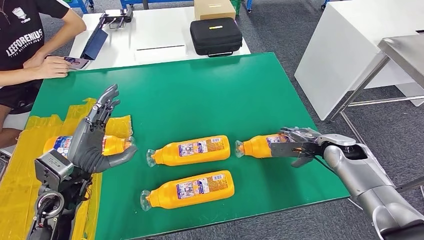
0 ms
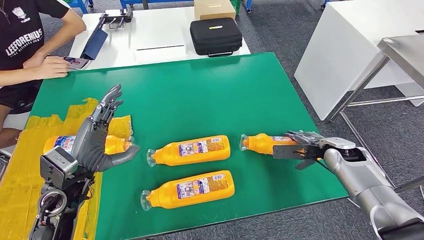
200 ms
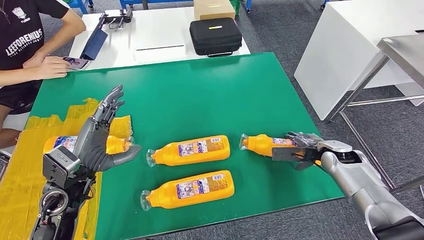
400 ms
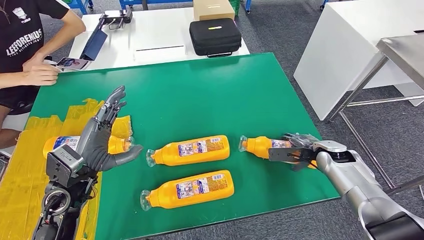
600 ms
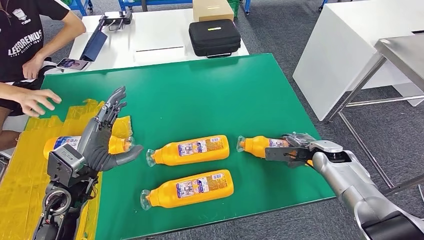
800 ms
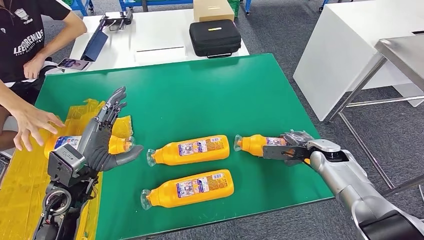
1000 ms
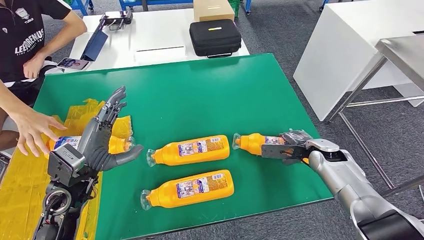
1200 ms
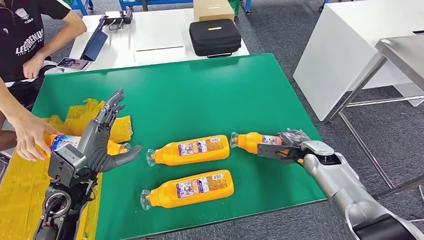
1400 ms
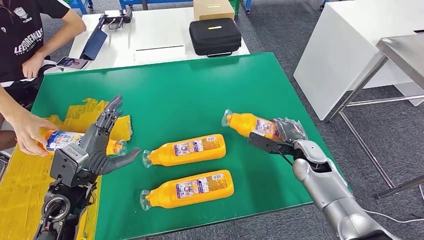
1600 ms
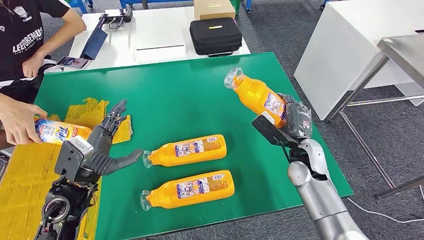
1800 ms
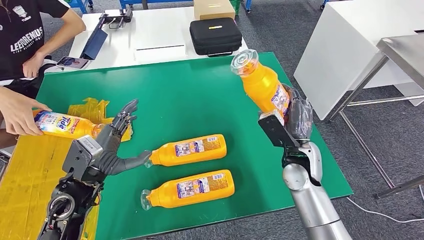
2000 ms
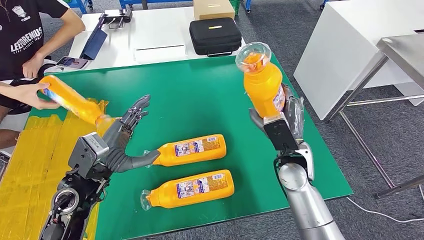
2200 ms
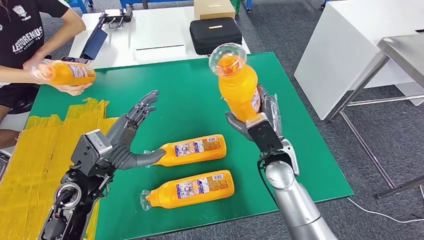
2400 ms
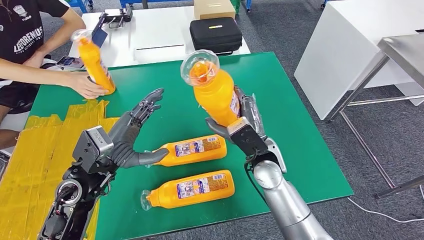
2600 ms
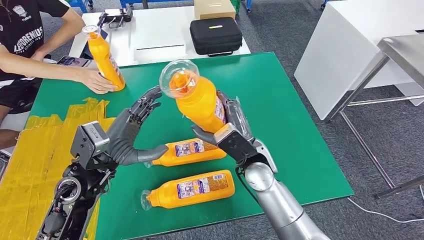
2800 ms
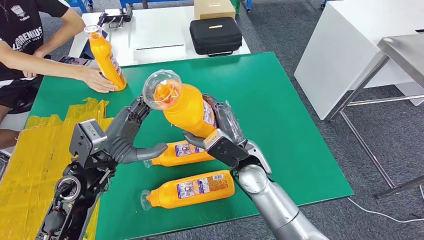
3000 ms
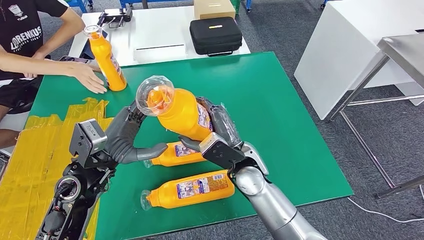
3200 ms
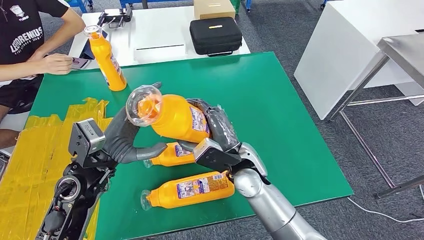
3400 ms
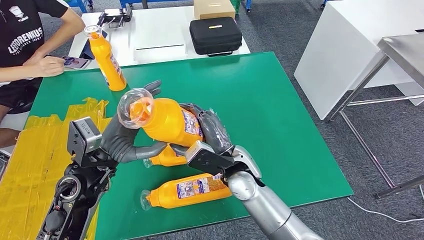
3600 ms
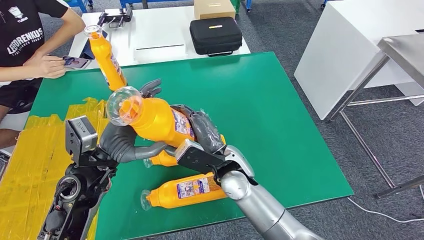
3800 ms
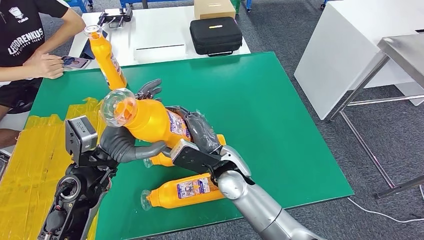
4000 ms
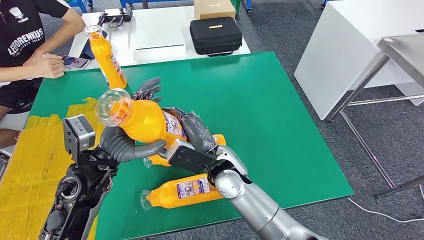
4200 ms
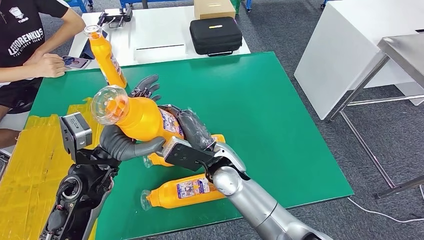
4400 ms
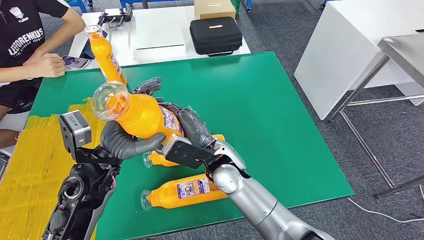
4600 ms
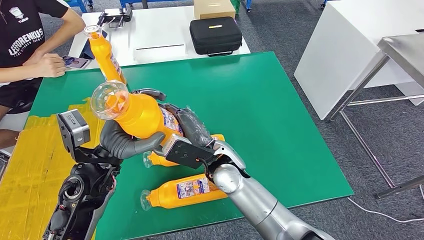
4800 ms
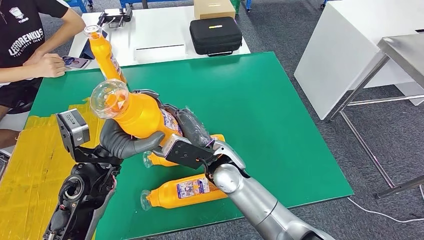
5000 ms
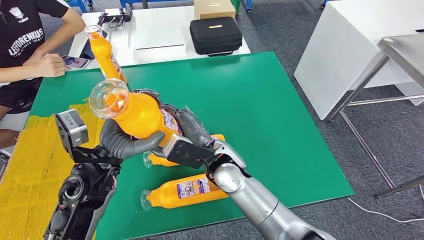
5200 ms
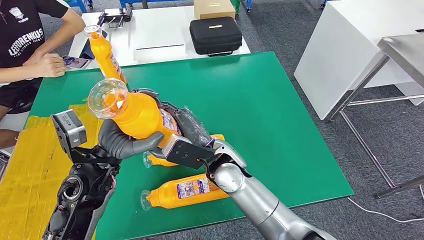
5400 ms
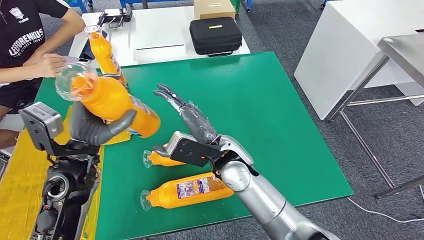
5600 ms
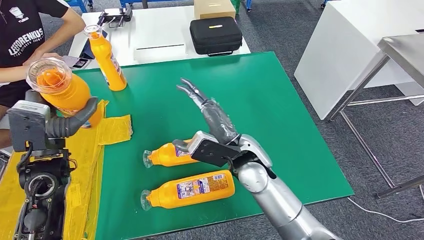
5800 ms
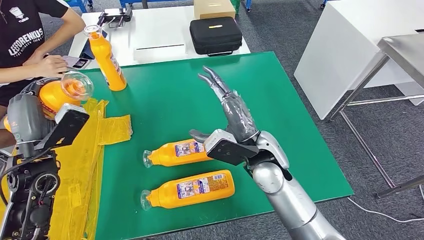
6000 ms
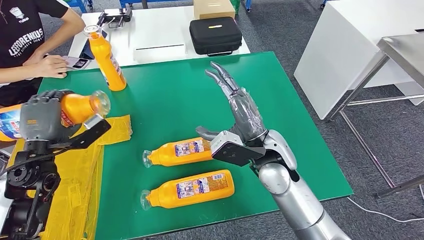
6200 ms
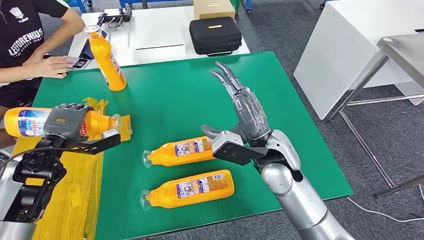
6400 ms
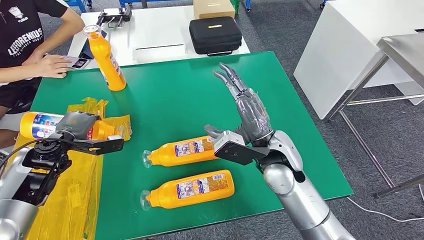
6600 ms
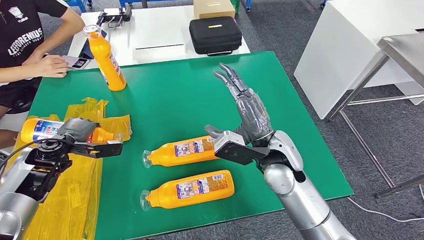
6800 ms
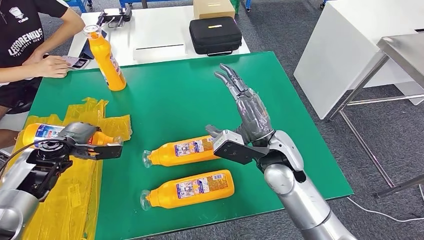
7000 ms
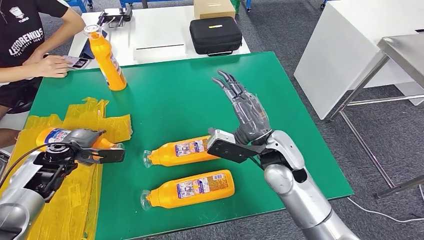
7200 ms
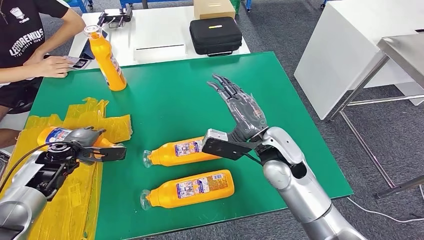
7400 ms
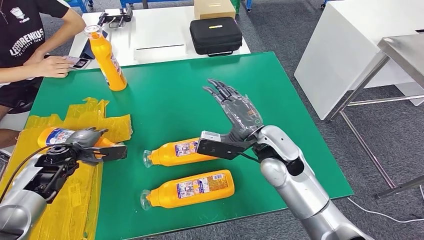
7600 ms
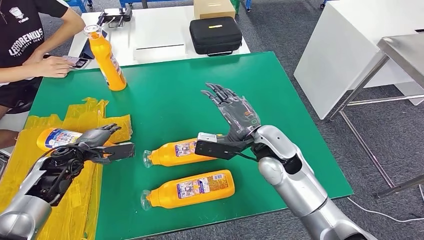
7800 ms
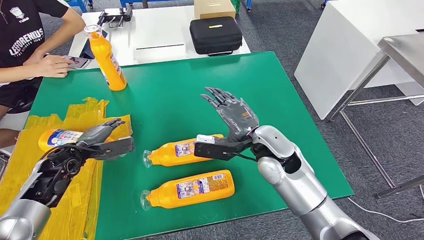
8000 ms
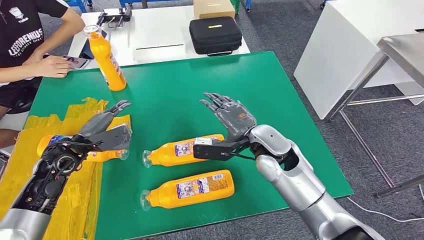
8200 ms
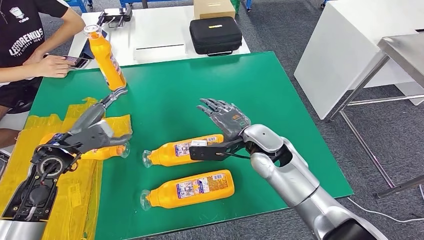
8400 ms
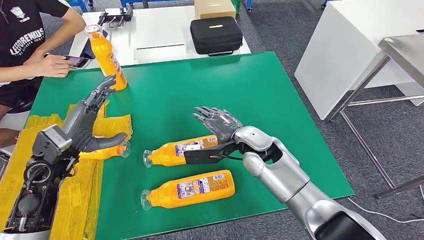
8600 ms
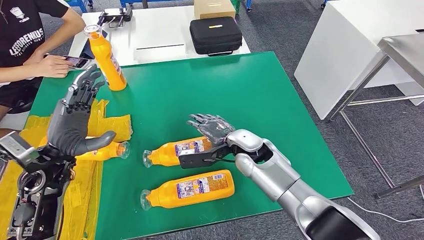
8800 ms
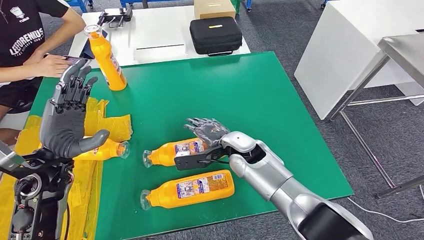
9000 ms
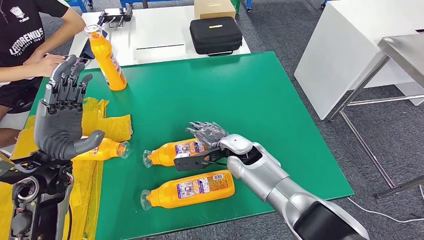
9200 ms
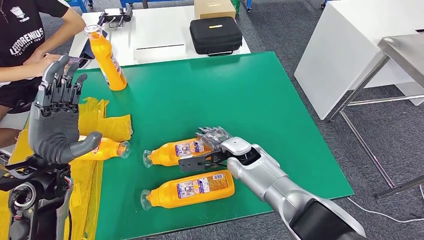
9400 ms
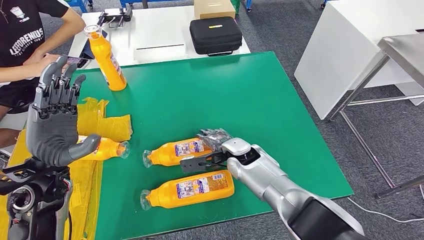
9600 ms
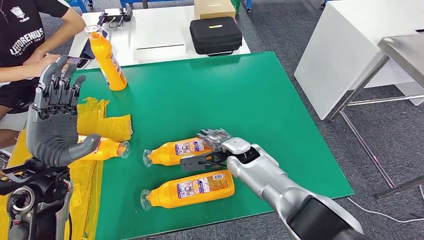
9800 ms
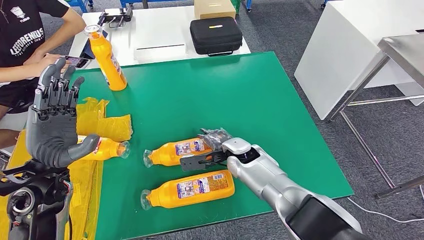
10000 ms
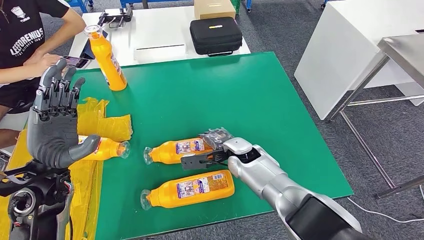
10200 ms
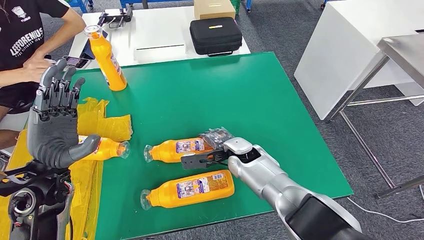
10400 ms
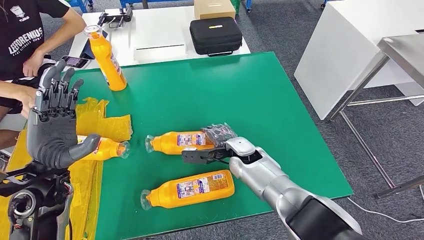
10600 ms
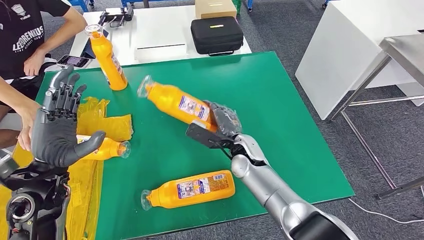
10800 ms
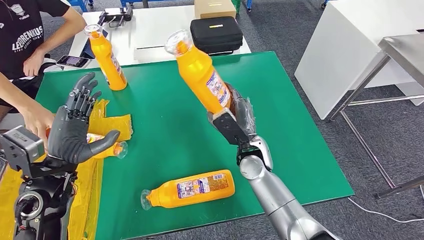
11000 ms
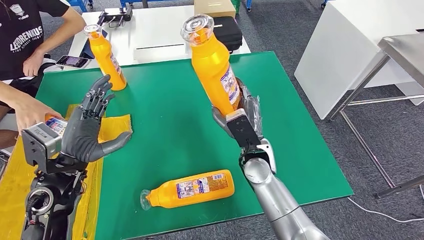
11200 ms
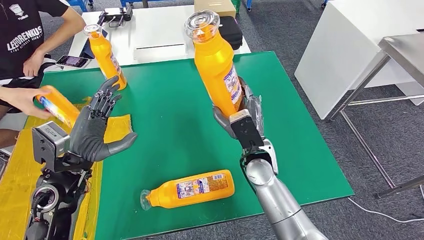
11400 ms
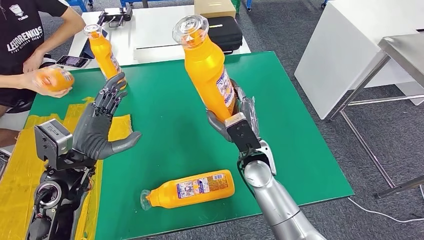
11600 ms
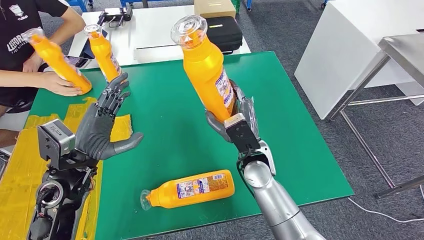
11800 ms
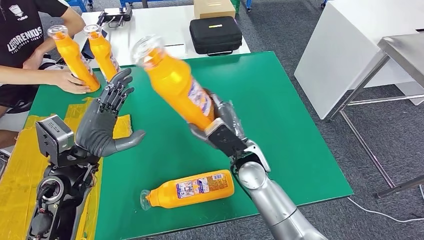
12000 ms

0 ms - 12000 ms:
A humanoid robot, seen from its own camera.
Step, 0 ms - 3200 ms: Pick up the fast-moving consumer goods bottle from the table.
Step, 3600 ms - 7600 ms: Flip the fast-moving consumer goods bottle to the front side.
3000 ms - 4400 ms: The right hand travels to the left by approximately 5 cm.
6000 ms - 7600 ms: The left hand moves downward and forward, about 15 cm.
7600 ms - 9000 ms: The left hand travels upward, backward and to the right by some 15 cm, while the right hand is displaced downward and to the left by approximately 10 cm.
9000 ms - 10400 ms: There are only small adjustments of the hands.

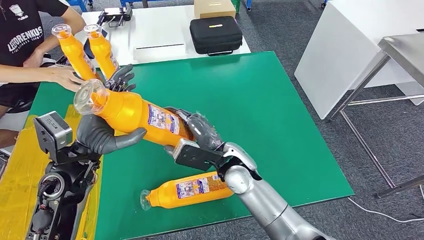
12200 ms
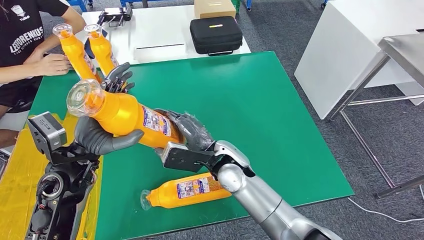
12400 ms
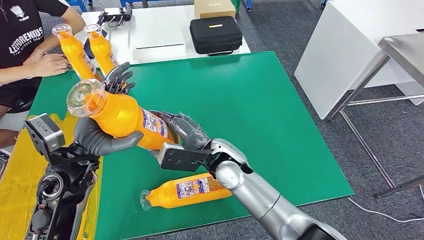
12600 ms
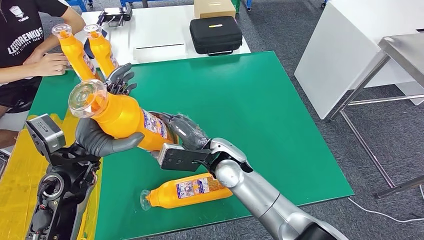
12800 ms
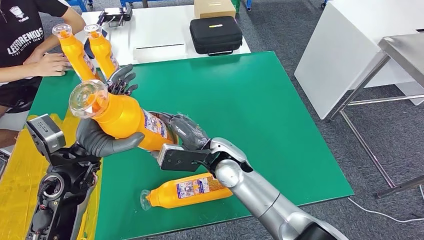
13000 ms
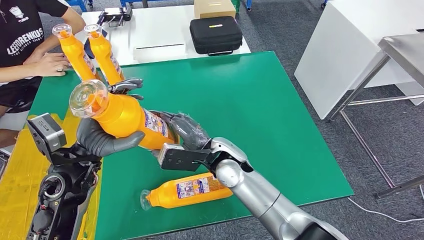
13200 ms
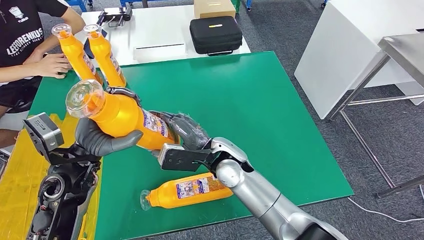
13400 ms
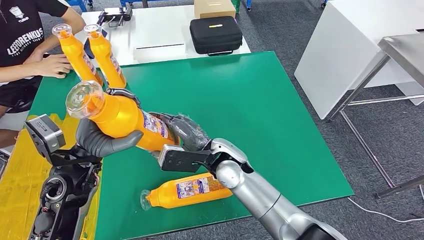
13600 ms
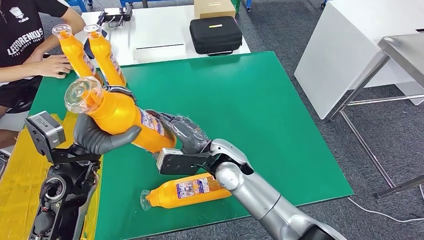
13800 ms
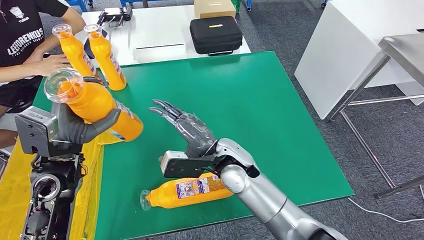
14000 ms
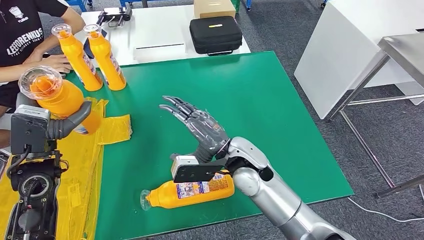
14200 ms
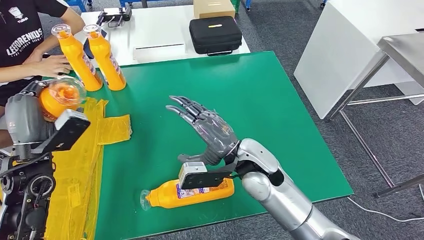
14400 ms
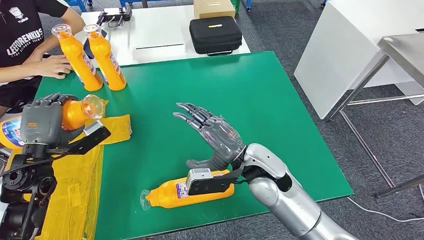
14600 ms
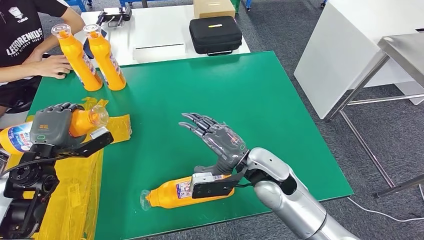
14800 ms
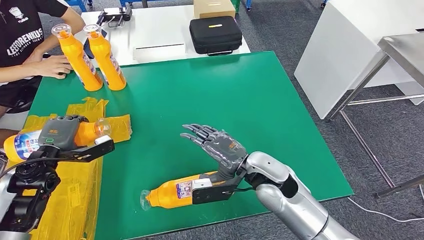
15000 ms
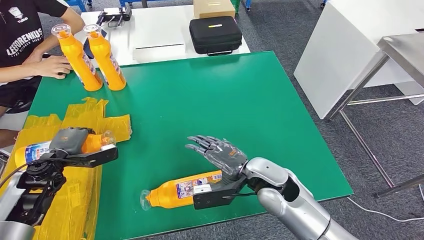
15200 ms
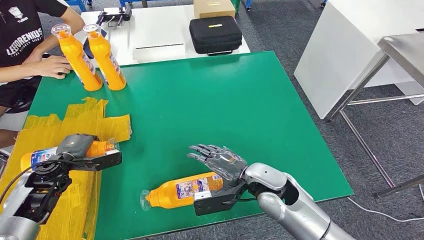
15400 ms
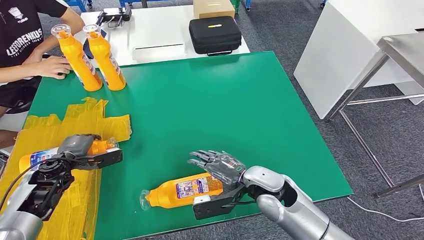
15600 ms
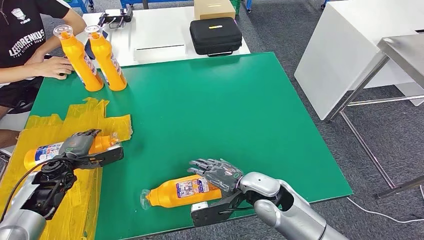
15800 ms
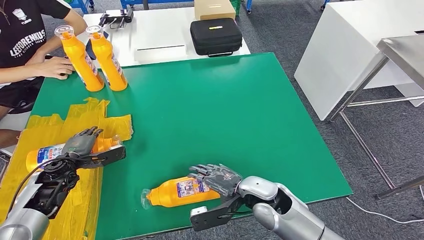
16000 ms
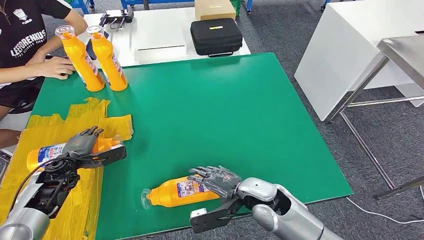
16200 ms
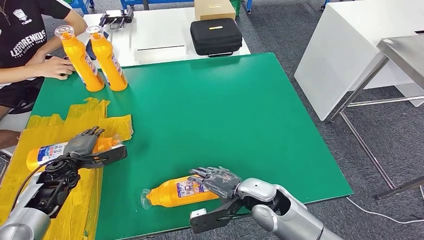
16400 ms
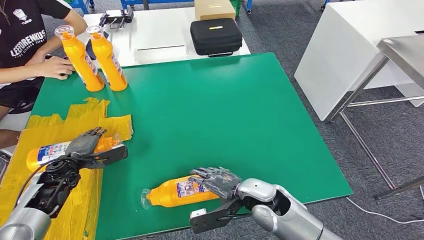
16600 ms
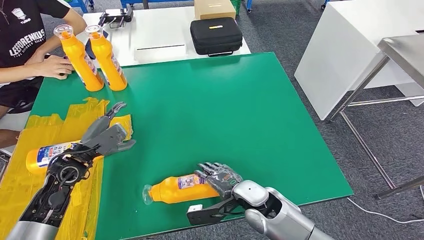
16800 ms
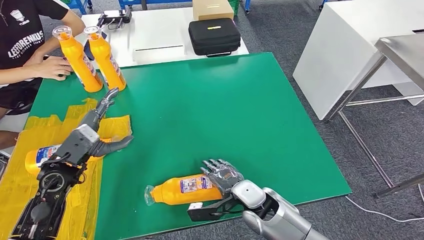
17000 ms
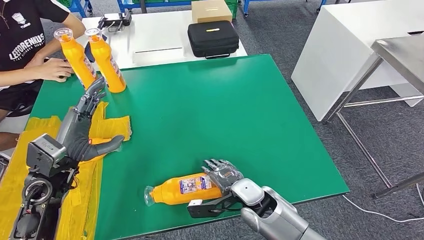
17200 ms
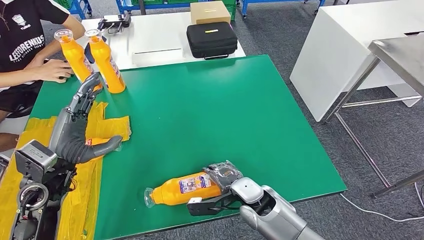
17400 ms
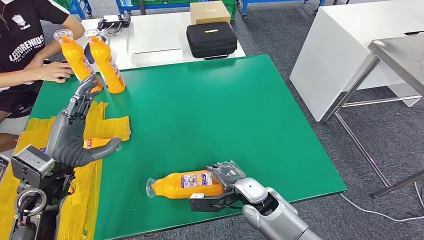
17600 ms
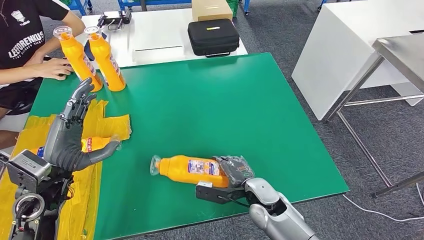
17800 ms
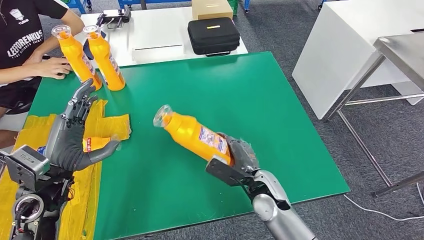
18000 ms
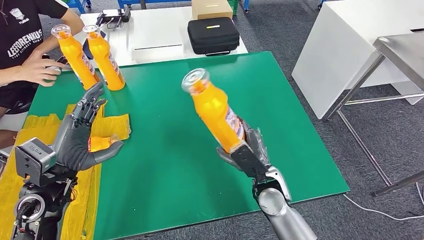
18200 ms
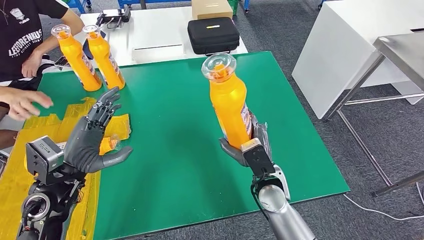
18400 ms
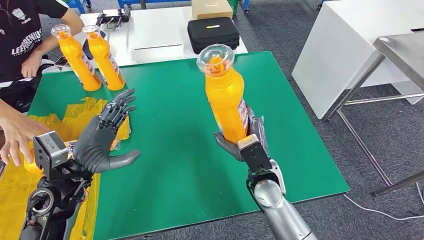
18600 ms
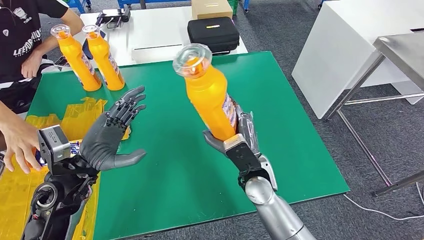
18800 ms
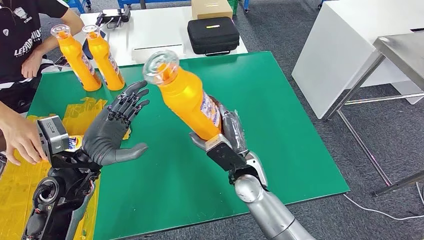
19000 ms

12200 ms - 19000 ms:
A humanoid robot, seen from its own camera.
Step, 12800 ms - 16000 ms: Flip the fast-moving consumer goods bottle to the front side.
12200 ms - 13600 ms: The hands make only small movements.
